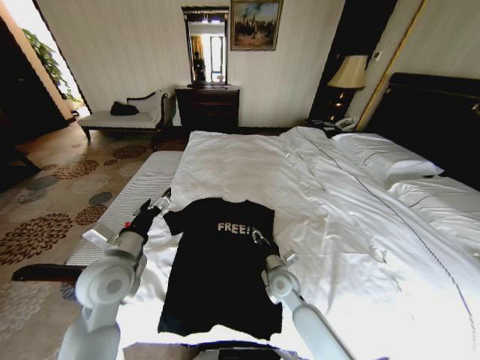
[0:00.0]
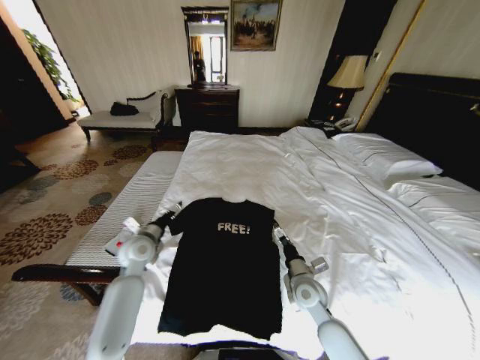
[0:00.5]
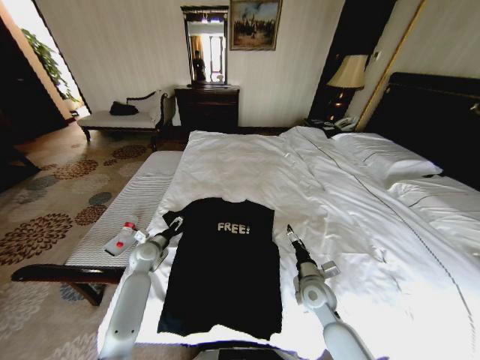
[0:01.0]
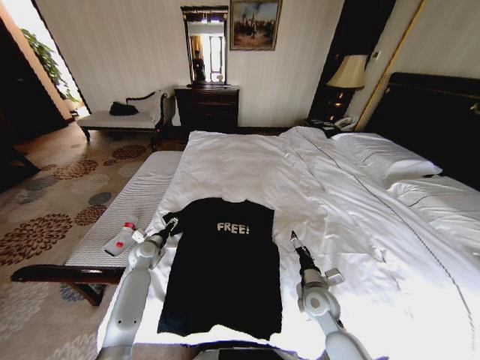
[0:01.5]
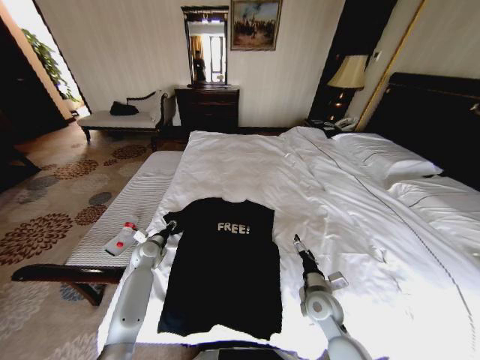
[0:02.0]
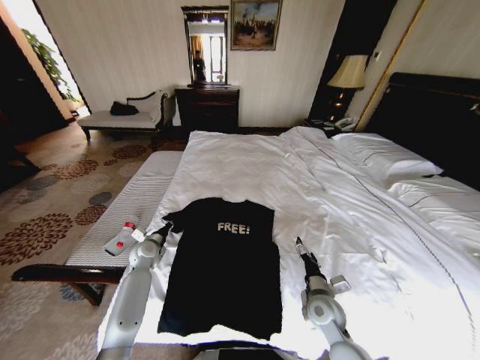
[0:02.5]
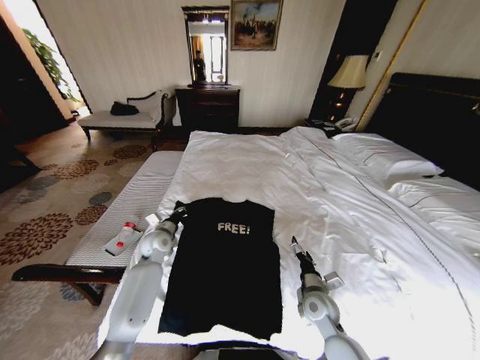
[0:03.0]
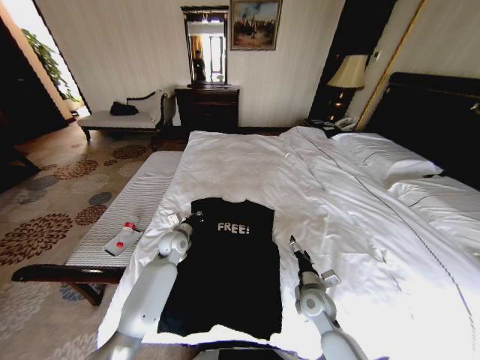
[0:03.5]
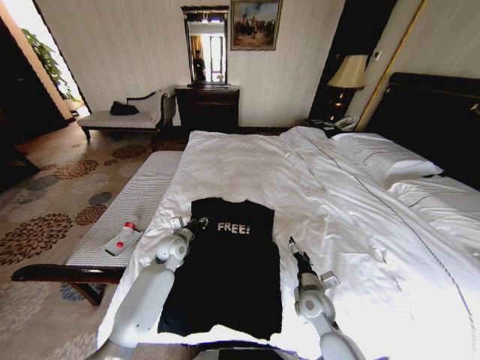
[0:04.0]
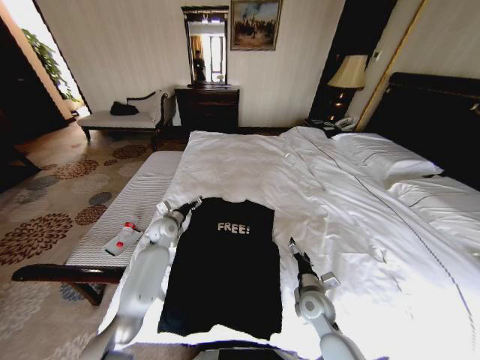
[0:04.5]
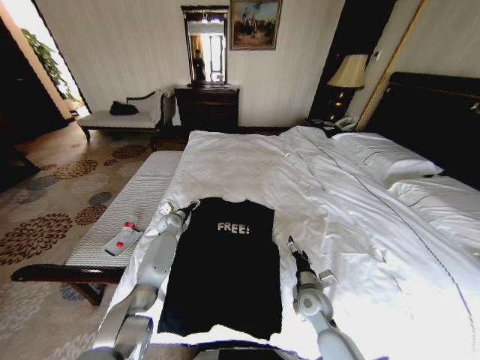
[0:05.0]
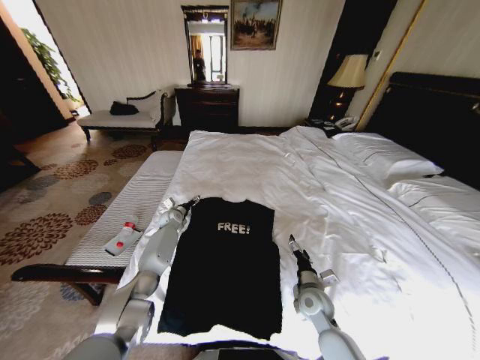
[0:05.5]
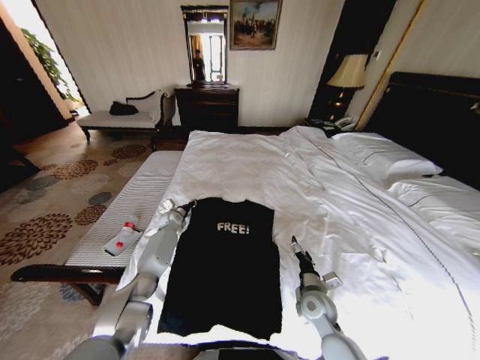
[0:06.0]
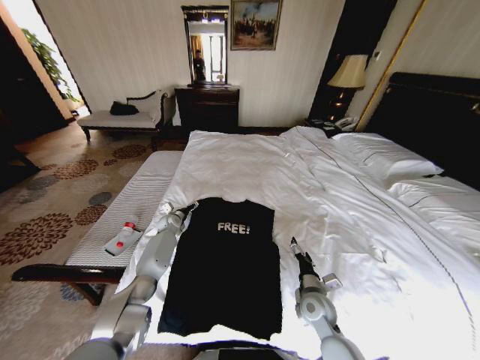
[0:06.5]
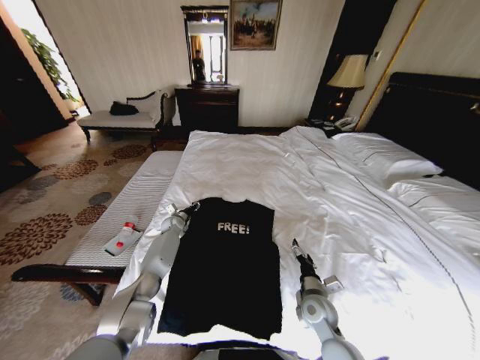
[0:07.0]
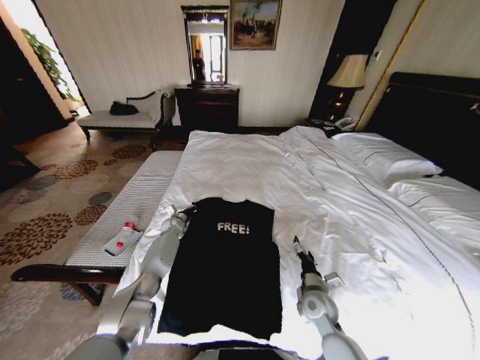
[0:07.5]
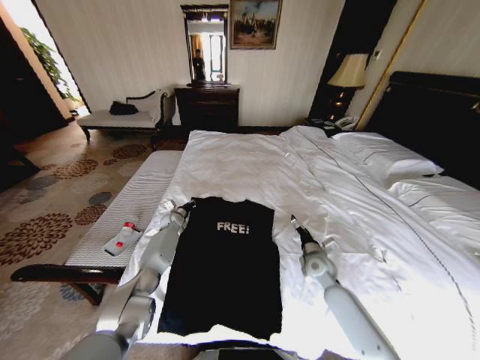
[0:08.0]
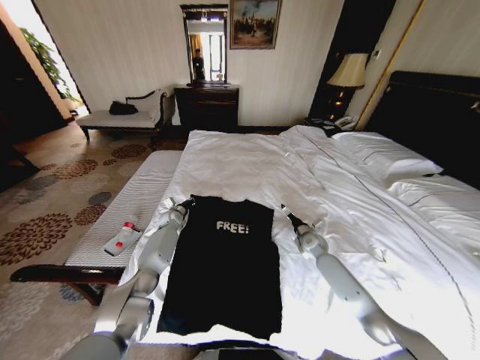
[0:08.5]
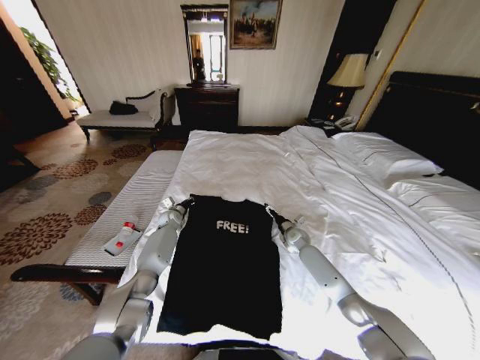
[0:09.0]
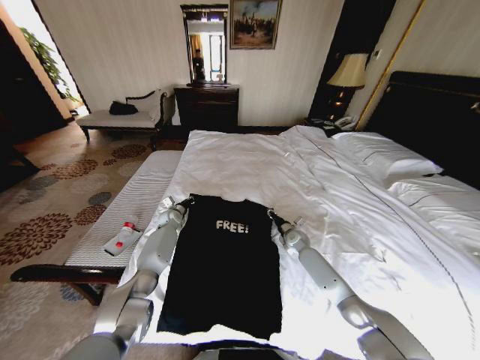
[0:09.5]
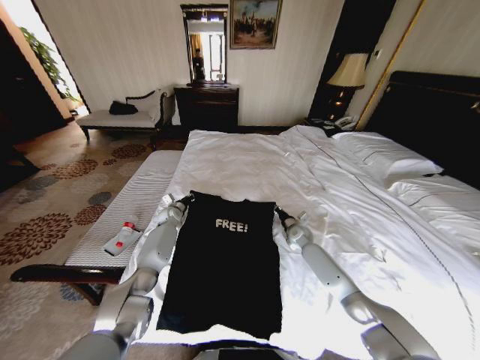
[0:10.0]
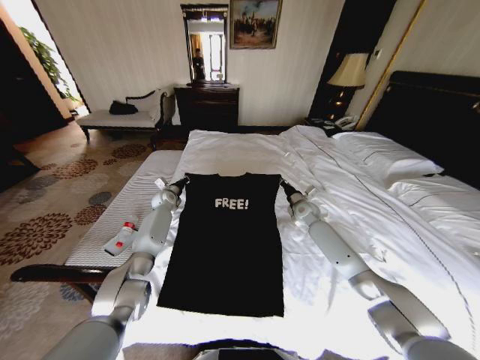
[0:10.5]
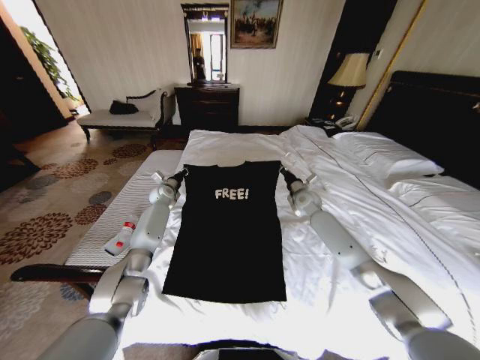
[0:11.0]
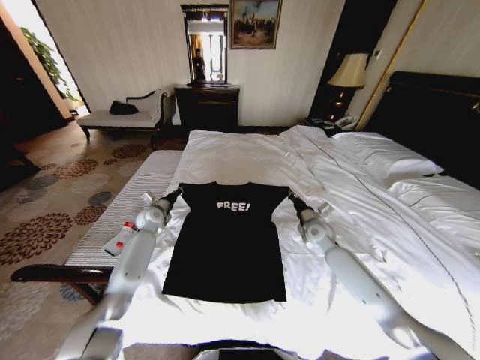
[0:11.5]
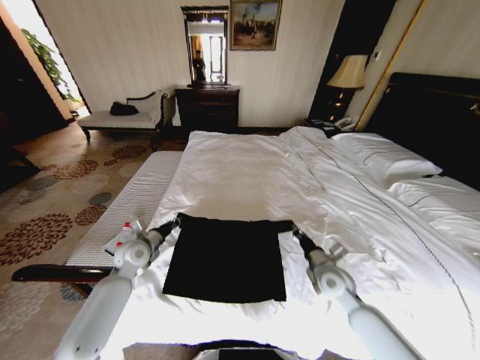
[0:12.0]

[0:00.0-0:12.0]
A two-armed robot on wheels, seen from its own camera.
Task of the whole recording: Fold the clothes on the bed.
0:00.0 to 0:02.0: The left gripper travels downward and forward by about 25 cm, and closes up; the right gripper heads to the right and backward, covering about 10 cm, and opens.
0:02.0 to 0:04.0: The left gripper moves to the right and upward, some 10 cm, and closes, then reopens.
0:04.0 to 0:06.0: The left gripper shifts roughly 15 cm forward, and opens, then closes once more.
0:06.0 to 0:08.0: The left gripper opens and closes again. Meanwhile the right gripper moves forward and to the right, approximately 10 cm.
0:08.0 to 0:10.0: The right gripper goes about 15 cm forward, and closes up.
0:10.0 to 0:12.0: The grippers both shift backward by roughly 20 cm.

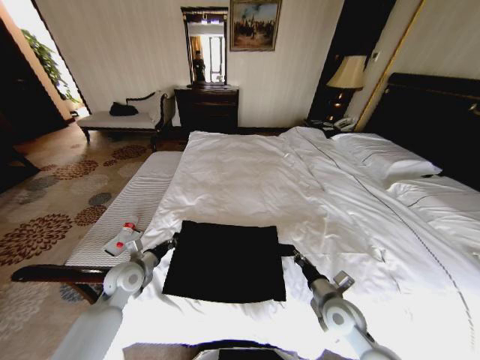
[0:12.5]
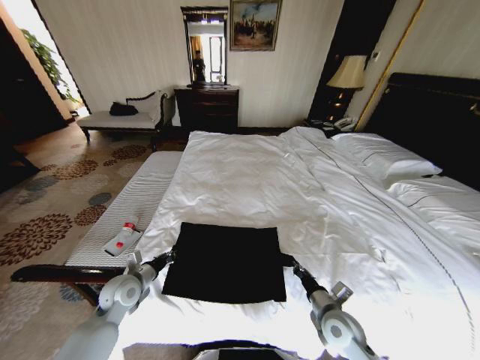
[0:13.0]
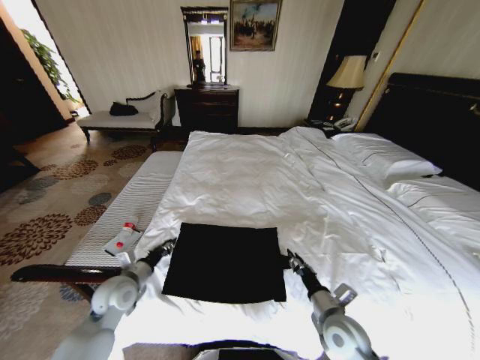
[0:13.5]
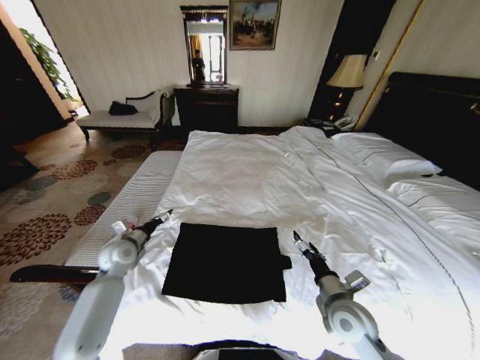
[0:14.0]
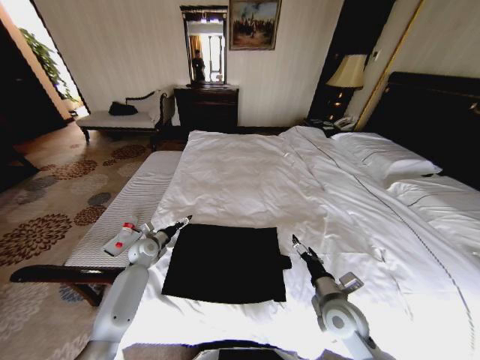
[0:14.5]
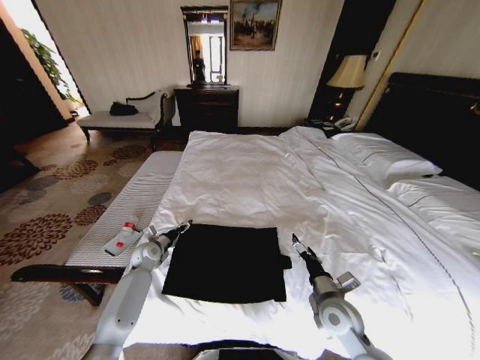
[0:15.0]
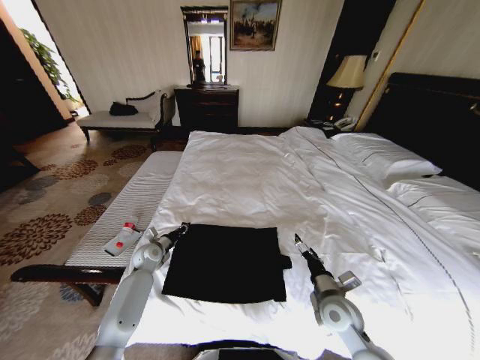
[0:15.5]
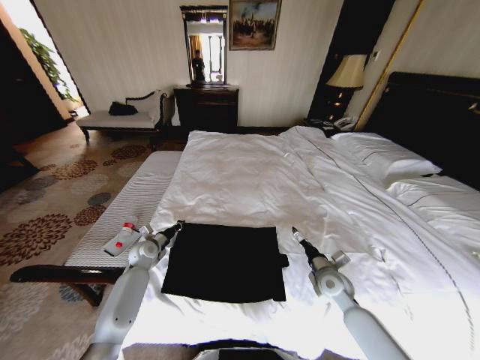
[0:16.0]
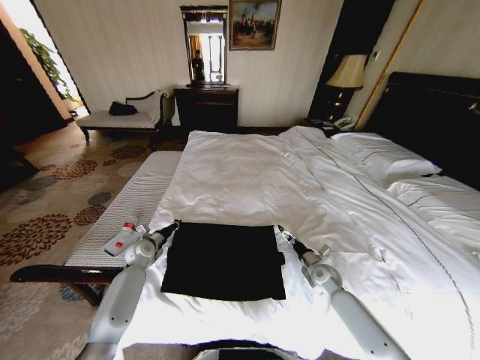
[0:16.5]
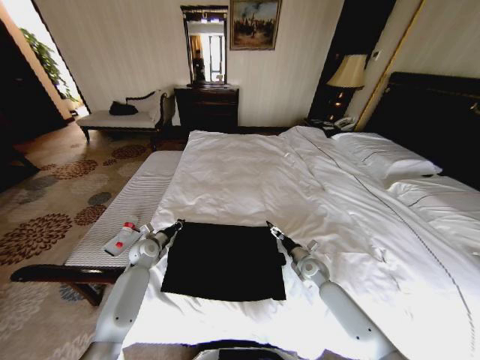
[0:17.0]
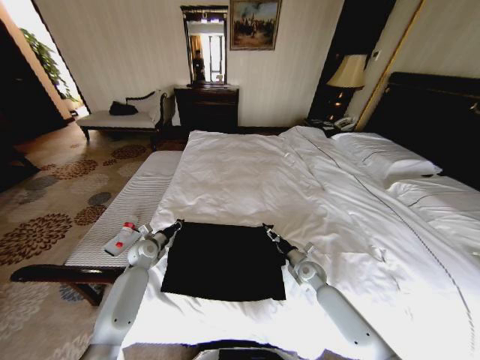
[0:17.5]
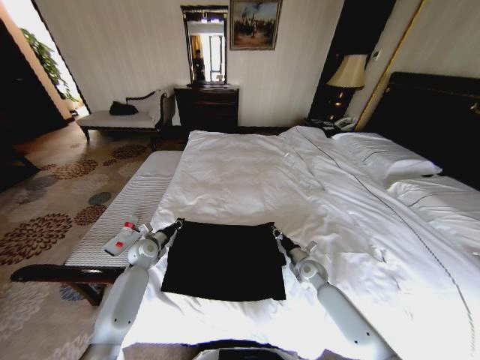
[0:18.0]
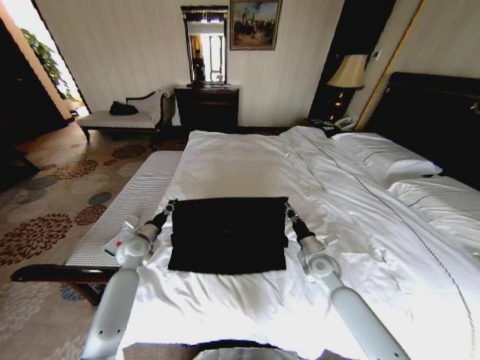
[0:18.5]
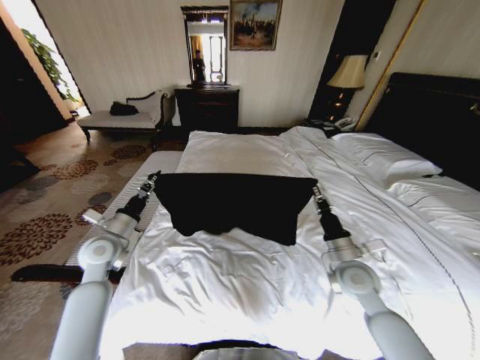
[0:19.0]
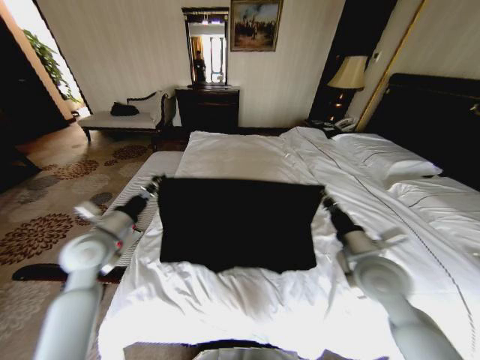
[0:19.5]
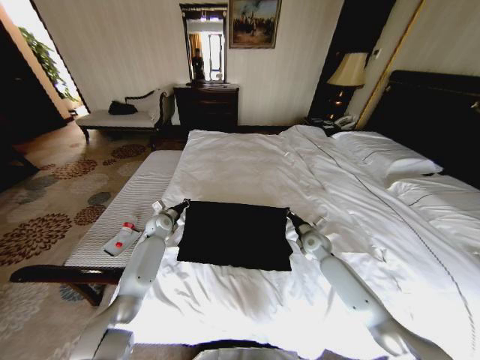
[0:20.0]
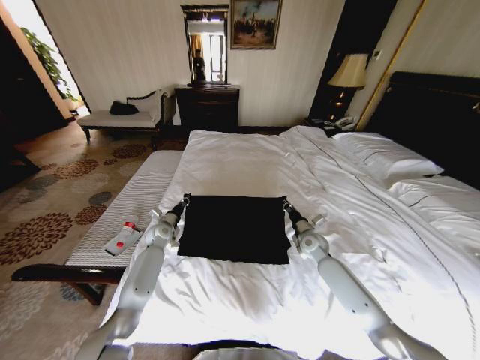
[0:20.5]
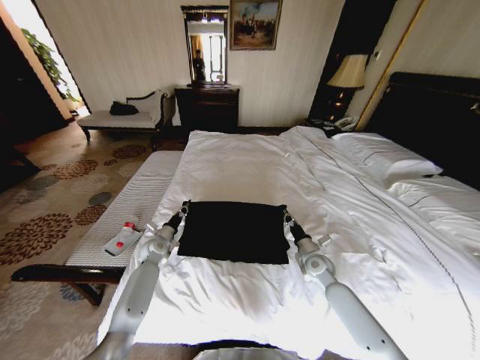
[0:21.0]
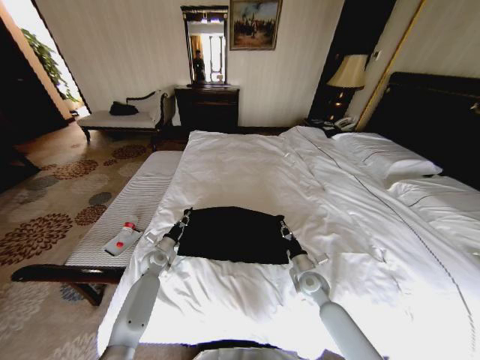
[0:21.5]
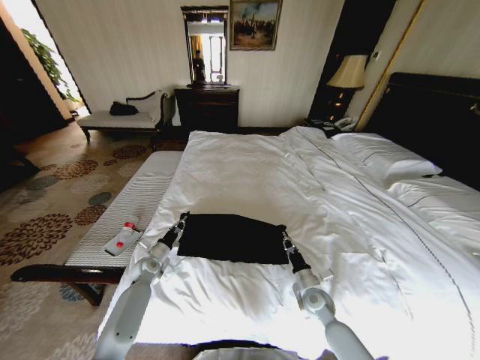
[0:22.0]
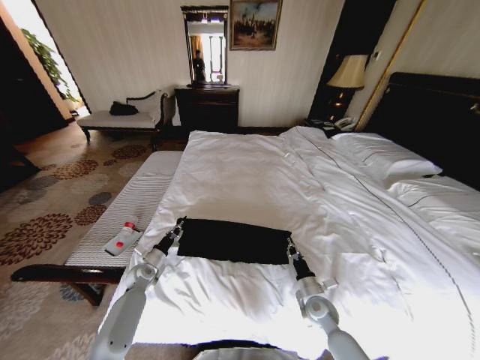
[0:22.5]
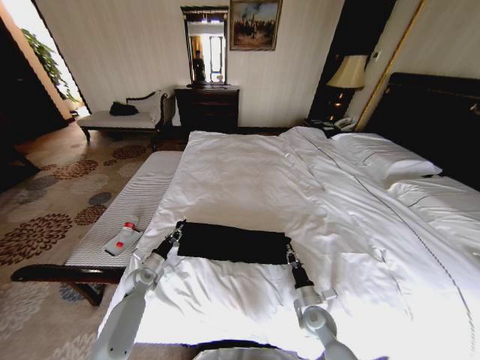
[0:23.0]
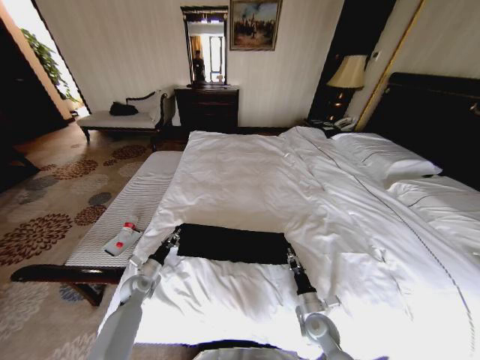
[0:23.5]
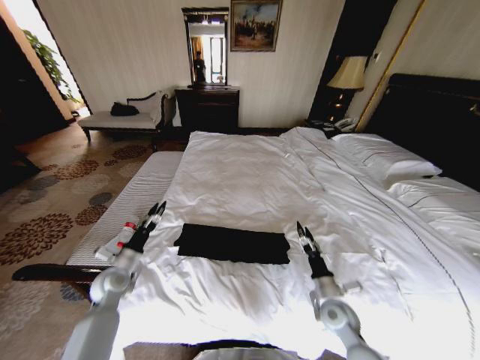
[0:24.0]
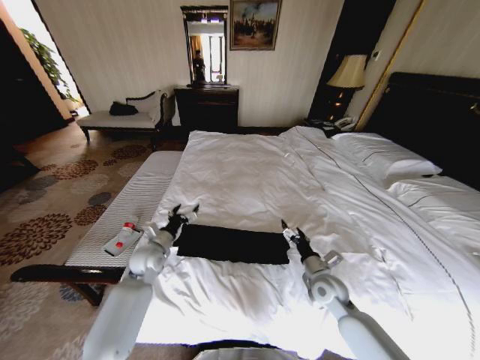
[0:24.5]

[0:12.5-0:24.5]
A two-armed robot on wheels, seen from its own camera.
Task of the whole recording: Fold the clothes on the bed.
0:12.5 to 0:14.5: The left gripper is displaced forward and downward by about 15 cm, and opens up. The right gripper opens its fingers.
0:14.5 to 0:16.5: The right gripper is displaced forward, downward and to the right by about 20 cm. Meanwhile the left gripper closes up.
0:16.5 to 0:18.5: The left gripper moves upward, approximately 5 cm; the right gripper goes roughly 10 cm upward, and closes its fingers.
0:18.5 to 0:20.5: The left gripper heads forward and downward, covering about 10 cm, while the right gripper moves forward, roughly 10 cm.
0:20.5 to 0:22.5: The right gripper goes some 20 cm backward and downward. The left gripper goes about 15 cm backward, downward and to the left.
0:22.5 to 0:24.5: The right gripper goes some 10 cm upward, and opens its fingers; the left gripper travels upward and to the right by about 15 cm, and opens its fingers.

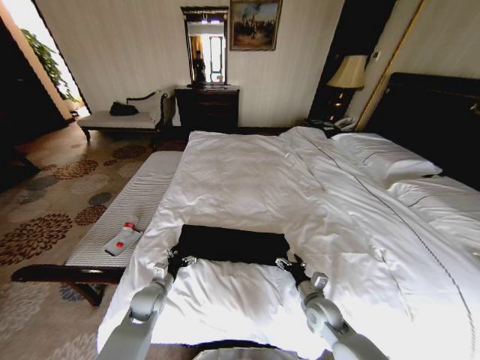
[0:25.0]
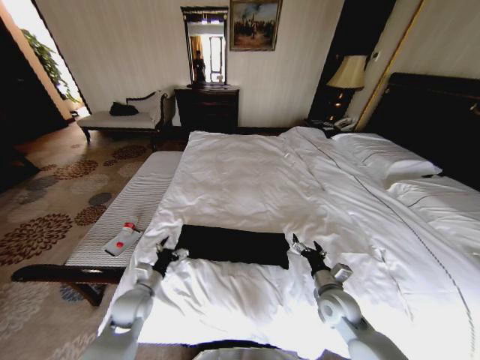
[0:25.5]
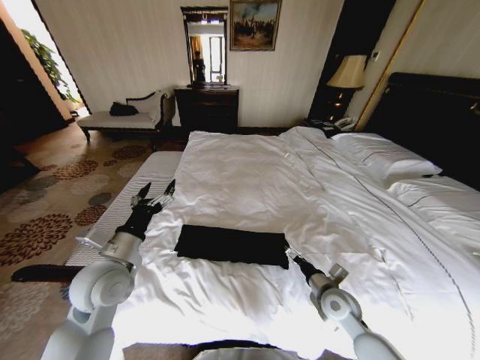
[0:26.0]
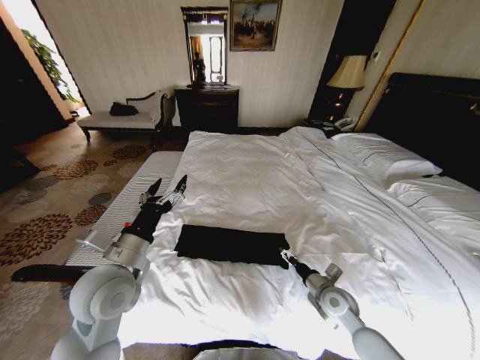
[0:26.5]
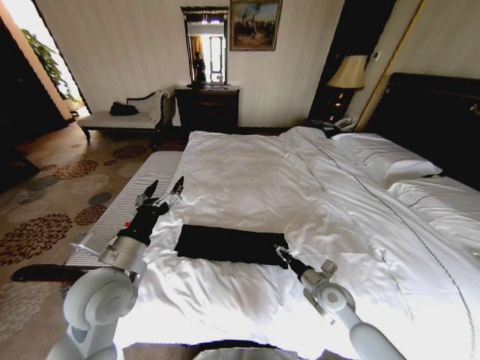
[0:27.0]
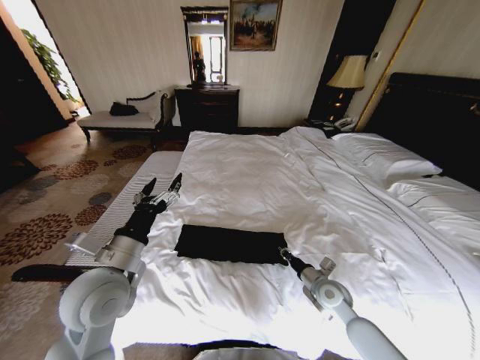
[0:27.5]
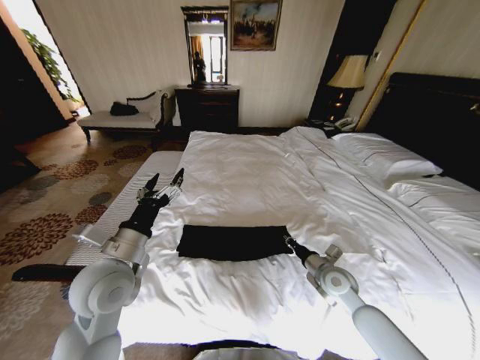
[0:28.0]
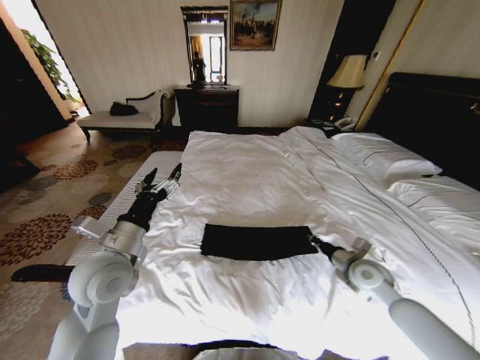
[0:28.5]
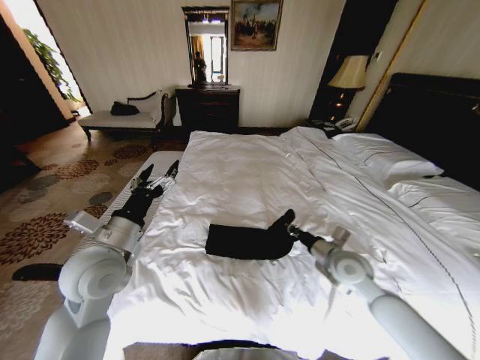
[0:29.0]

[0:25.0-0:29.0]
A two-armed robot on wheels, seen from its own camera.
Task of the whole recording: Fold the clothes on the bed.
0:25.0 to 0:27.0: The left gripper moves upward, about 25 cm. The right gripper moves upward, roughly 5 cm, and closes its fingers.
0:27.0 to 0:29.0: The right gripper is displaced upward by some 10 cm, and closes.
